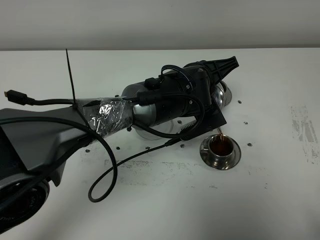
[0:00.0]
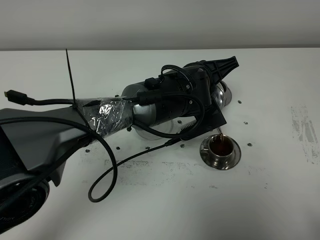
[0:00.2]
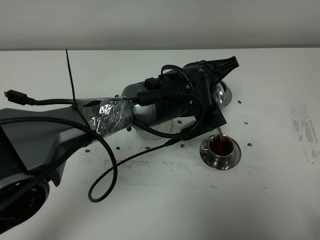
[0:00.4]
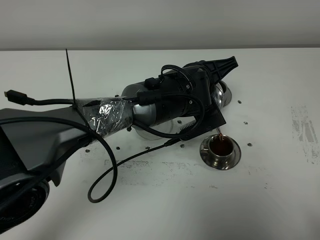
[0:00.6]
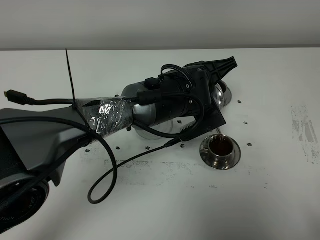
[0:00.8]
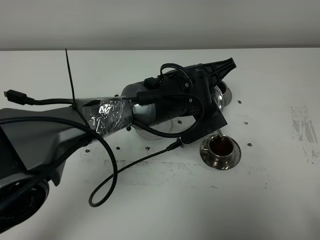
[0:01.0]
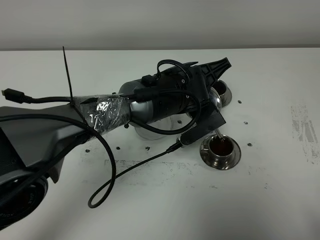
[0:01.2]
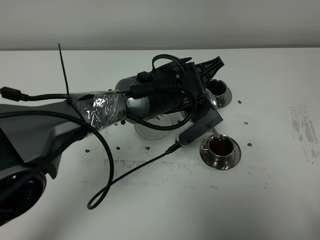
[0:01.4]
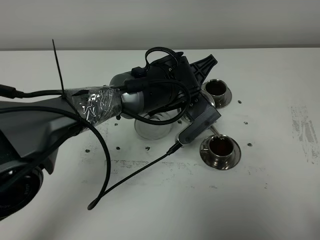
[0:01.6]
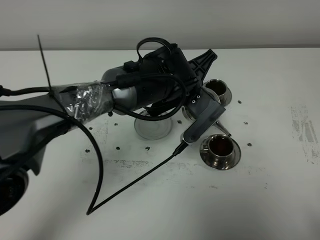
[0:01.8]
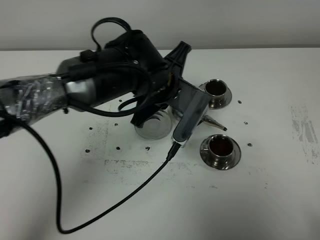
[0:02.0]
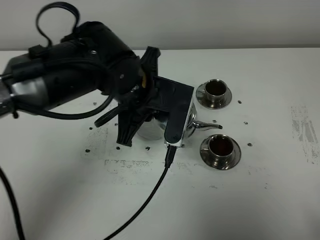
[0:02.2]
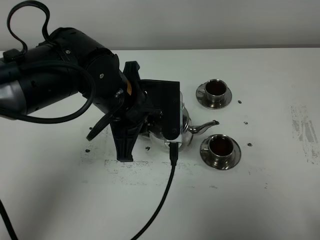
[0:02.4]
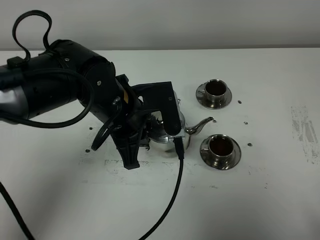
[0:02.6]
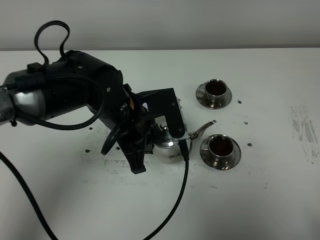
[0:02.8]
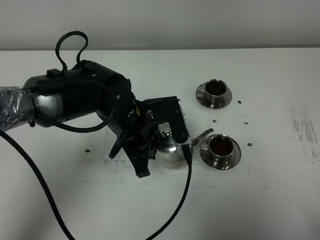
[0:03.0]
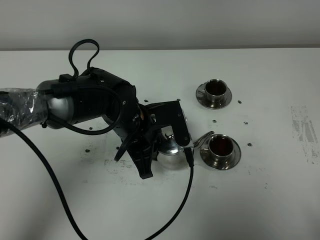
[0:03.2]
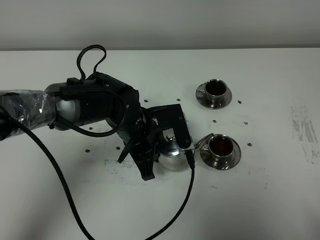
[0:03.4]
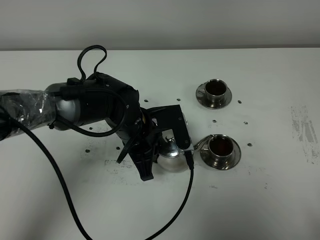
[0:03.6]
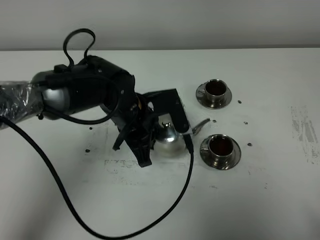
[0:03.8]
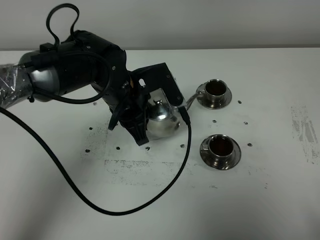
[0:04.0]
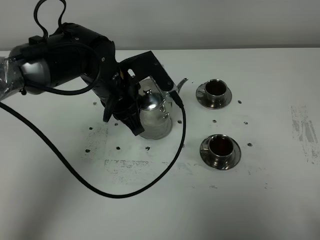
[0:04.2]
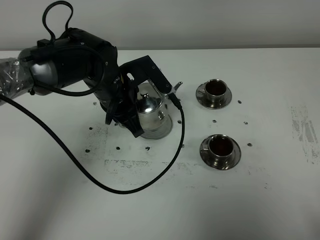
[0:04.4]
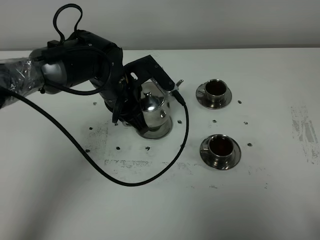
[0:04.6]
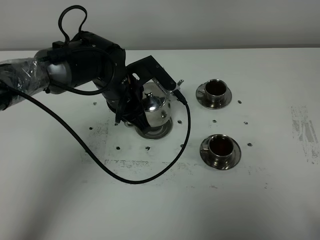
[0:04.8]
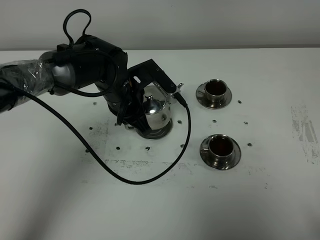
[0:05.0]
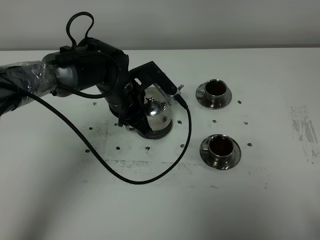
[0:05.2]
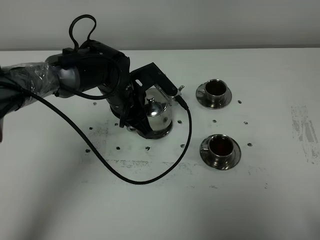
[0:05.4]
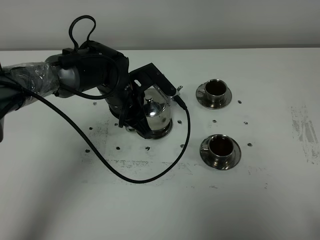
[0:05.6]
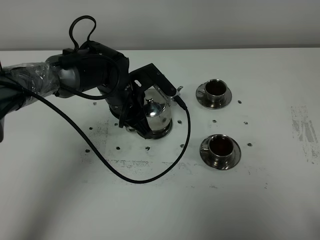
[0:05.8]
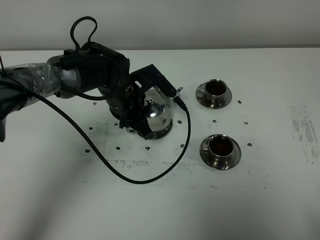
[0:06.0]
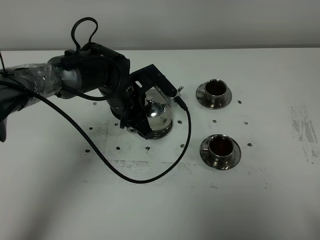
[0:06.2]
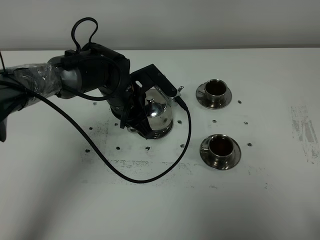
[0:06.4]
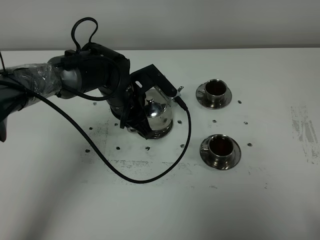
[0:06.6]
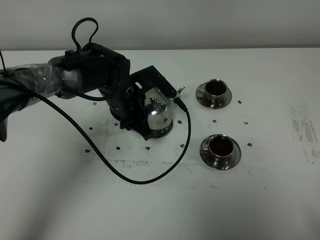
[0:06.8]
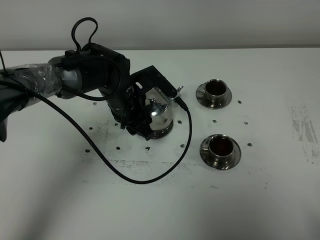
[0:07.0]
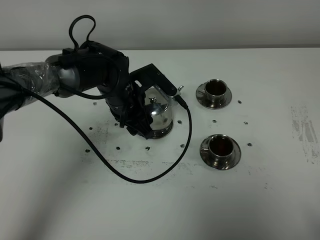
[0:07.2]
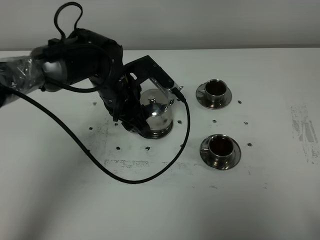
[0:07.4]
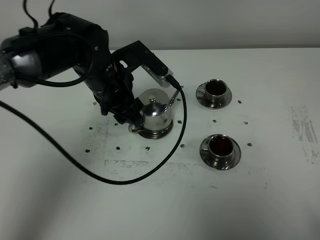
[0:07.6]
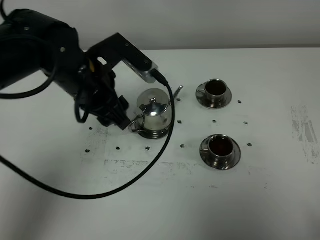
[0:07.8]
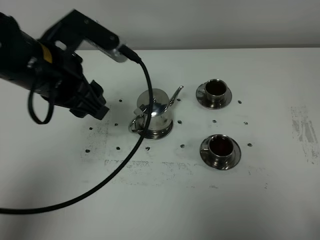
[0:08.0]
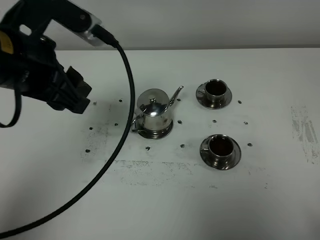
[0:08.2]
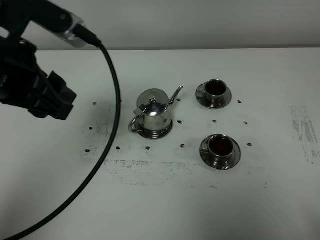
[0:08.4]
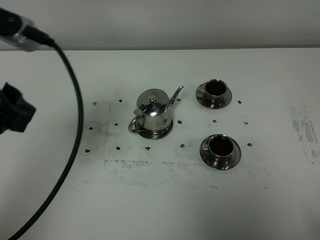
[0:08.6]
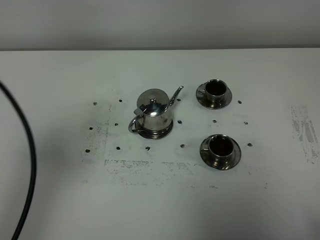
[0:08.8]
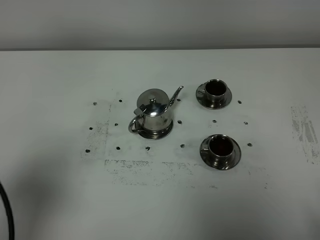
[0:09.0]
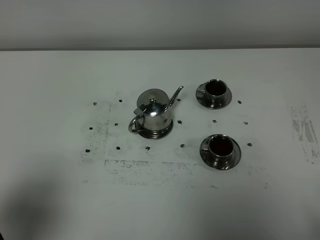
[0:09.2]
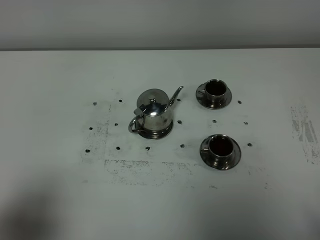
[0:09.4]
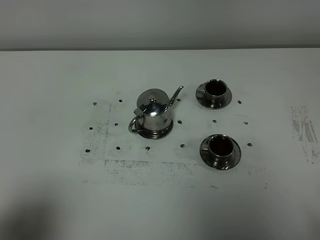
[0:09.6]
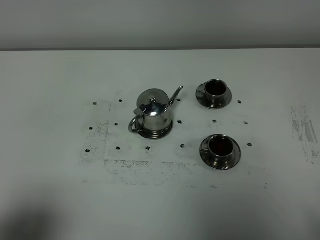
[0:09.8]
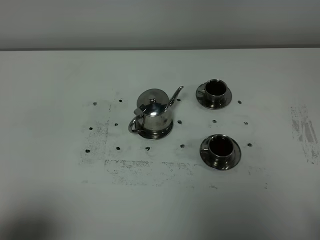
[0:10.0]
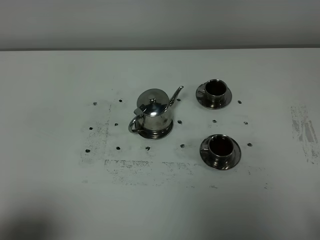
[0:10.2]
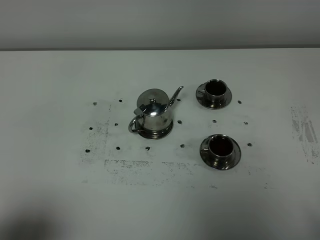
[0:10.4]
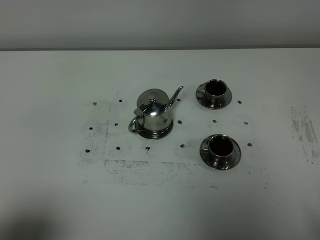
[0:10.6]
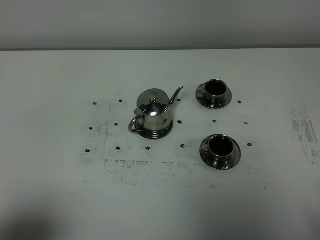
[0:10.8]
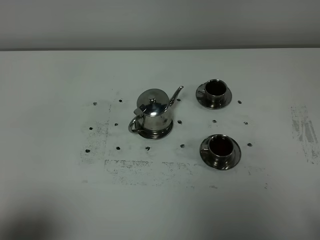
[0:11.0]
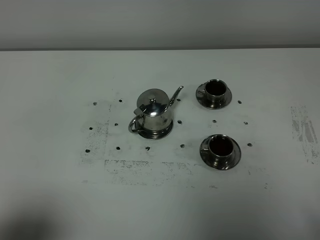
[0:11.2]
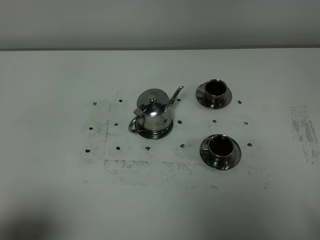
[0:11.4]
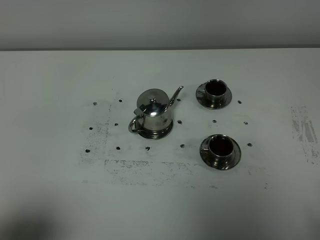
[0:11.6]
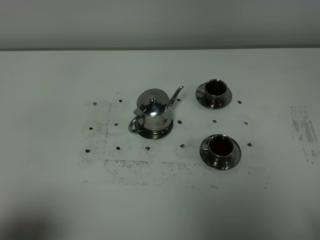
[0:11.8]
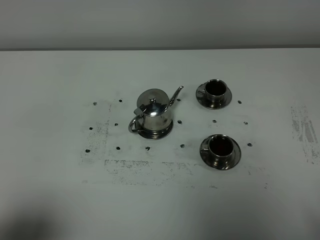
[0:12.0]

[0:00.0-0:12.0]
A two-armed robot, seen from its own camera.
Task of the whole recording: grasp the stainless steel teapot and pour the tea into the two stainless steel teacups one by one, put the stainless steel teapot back in its original place.
0:00.0 to 0:01.6: There are only small adjustments of the grippers.
0:01.6 to 0:03.0: The left gripper goes roughly 10 cm to the left and backward.
0:03.0 to 0:04.4: The left gripper goes some 5 cm forward.
0:04.4 to 0:06.0: There are only small adjustments of the grippers.
0:06.0 to 0:07.6: The left gripper travels upward by approximately 10 cm, and opens.
0:07.6 to 0:09.0: The left gripper travels backward and to the left by approximately 35 cm.
0:09.0 to 0:10.4: The left gripper is displaced backward and downward by approximately 10 cm.
0:10.4 to 0:12.0: The two grippers keep their place.

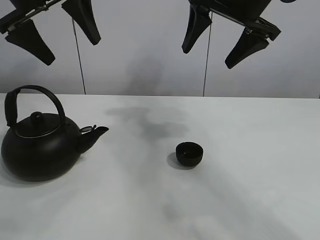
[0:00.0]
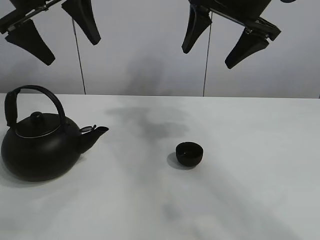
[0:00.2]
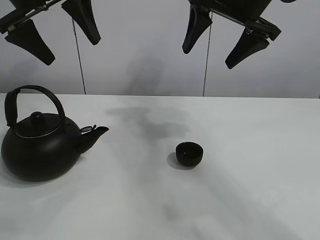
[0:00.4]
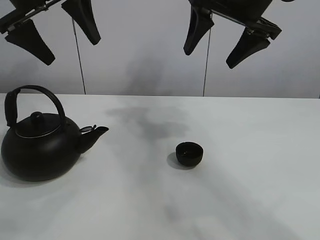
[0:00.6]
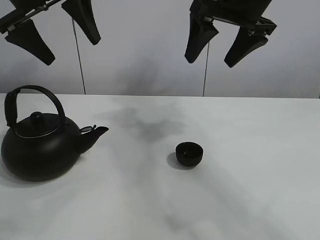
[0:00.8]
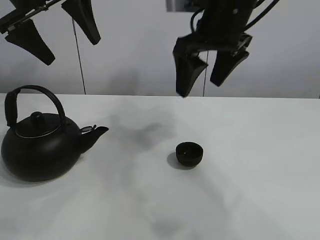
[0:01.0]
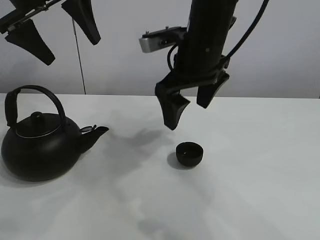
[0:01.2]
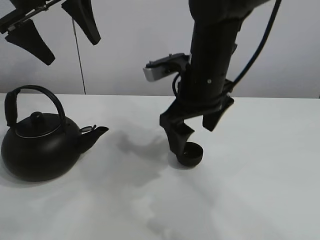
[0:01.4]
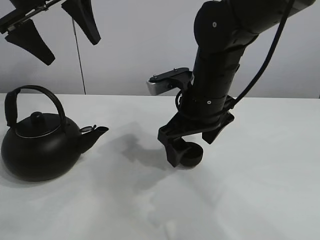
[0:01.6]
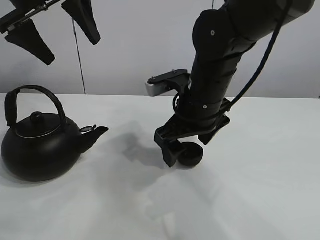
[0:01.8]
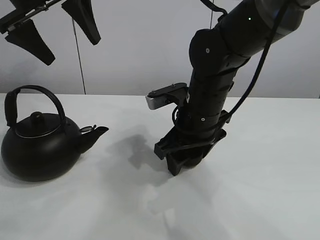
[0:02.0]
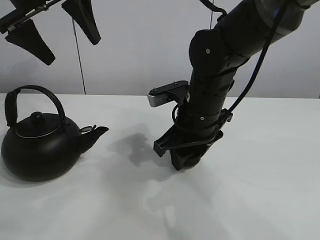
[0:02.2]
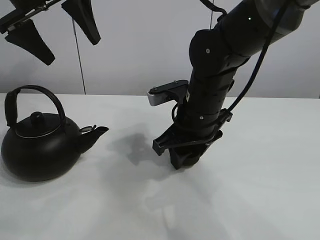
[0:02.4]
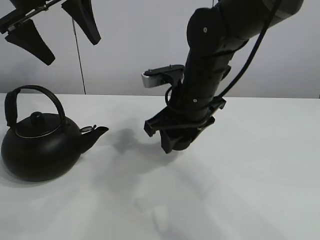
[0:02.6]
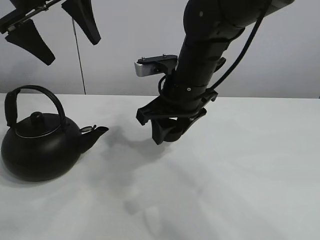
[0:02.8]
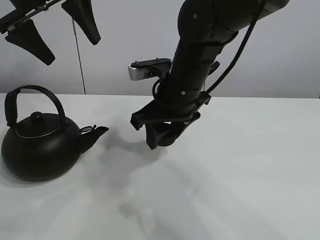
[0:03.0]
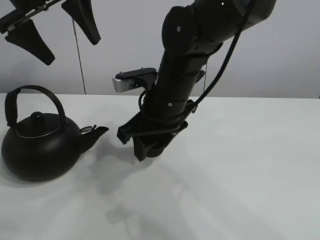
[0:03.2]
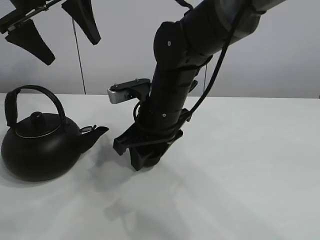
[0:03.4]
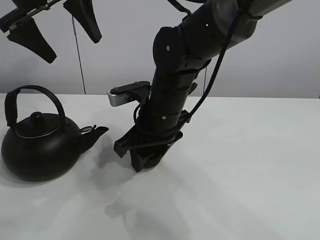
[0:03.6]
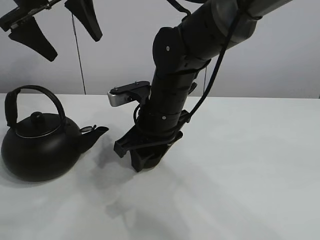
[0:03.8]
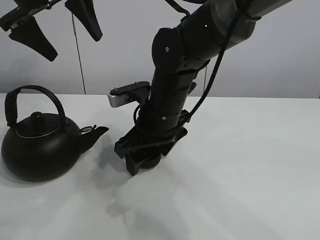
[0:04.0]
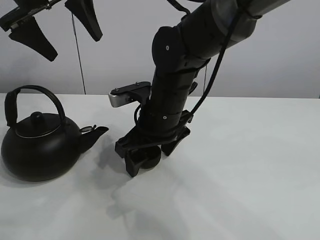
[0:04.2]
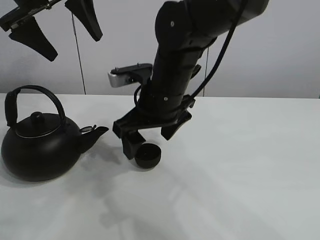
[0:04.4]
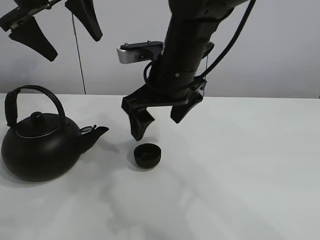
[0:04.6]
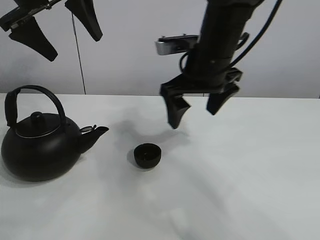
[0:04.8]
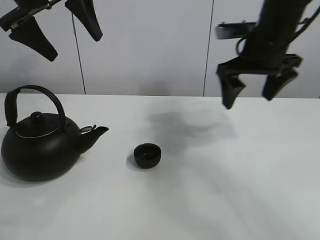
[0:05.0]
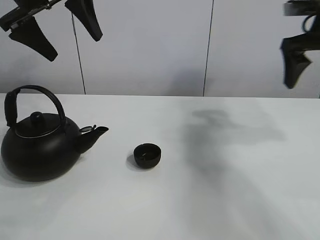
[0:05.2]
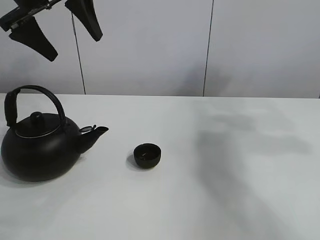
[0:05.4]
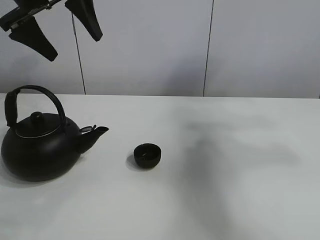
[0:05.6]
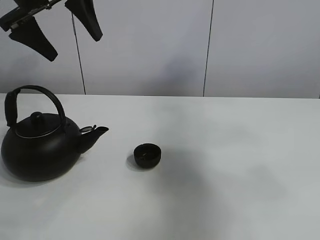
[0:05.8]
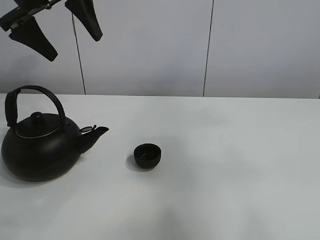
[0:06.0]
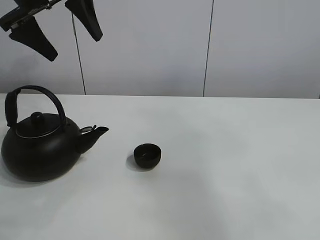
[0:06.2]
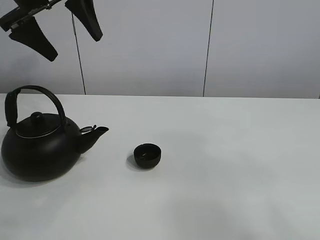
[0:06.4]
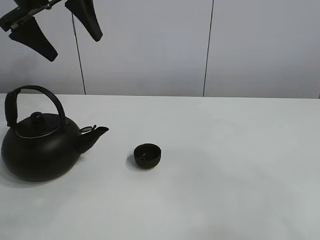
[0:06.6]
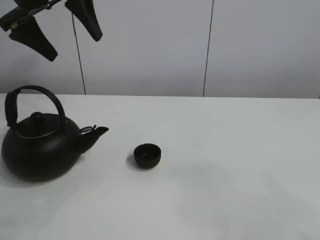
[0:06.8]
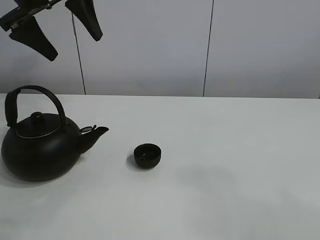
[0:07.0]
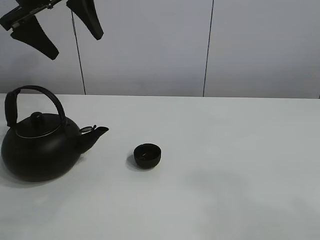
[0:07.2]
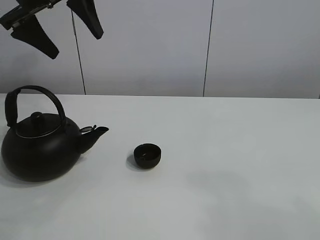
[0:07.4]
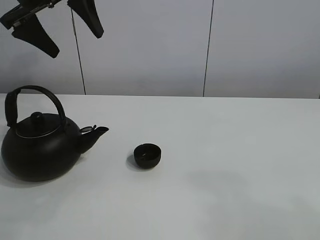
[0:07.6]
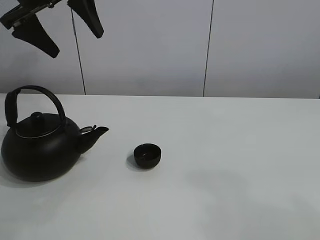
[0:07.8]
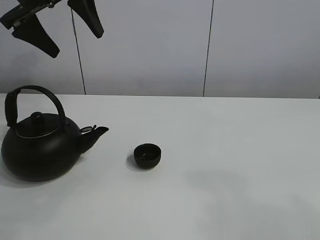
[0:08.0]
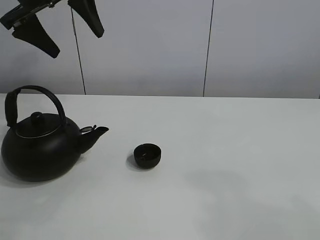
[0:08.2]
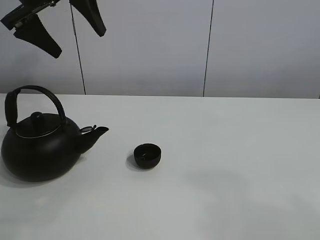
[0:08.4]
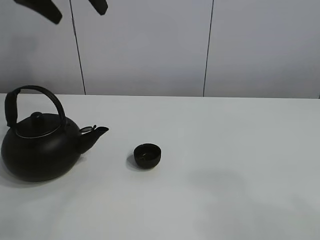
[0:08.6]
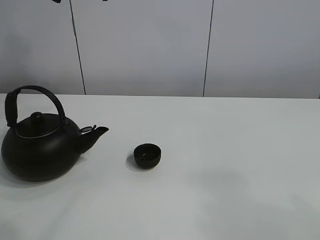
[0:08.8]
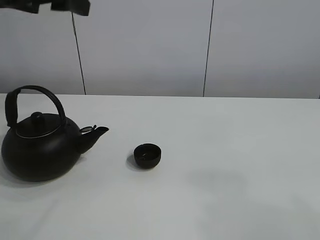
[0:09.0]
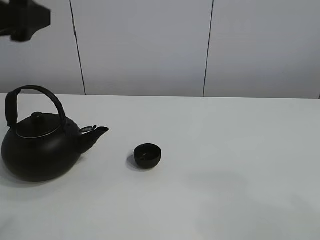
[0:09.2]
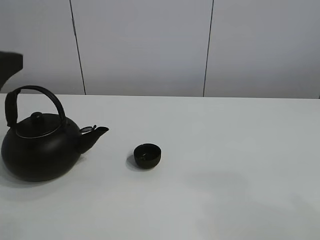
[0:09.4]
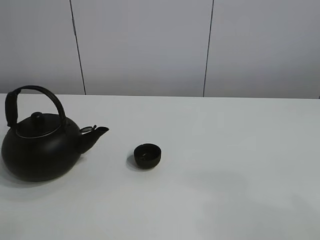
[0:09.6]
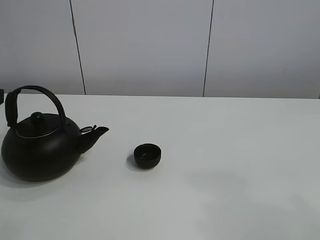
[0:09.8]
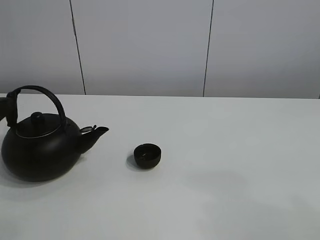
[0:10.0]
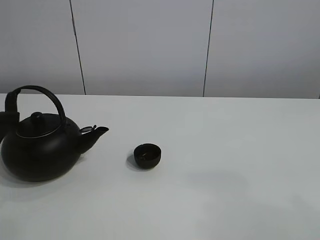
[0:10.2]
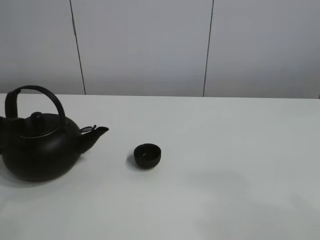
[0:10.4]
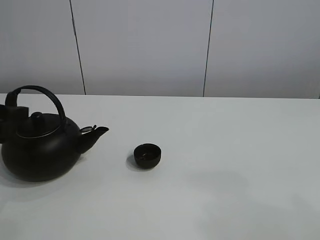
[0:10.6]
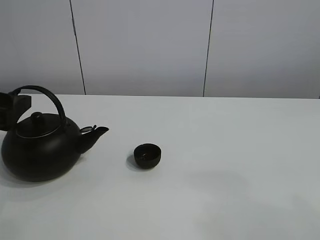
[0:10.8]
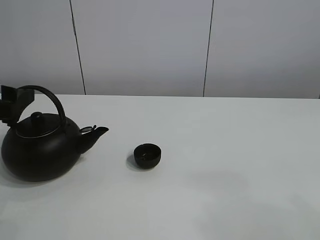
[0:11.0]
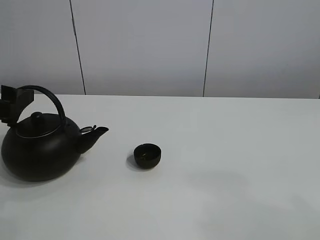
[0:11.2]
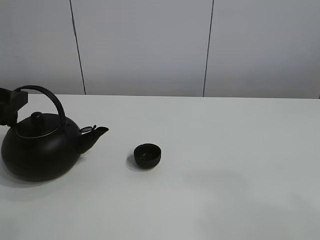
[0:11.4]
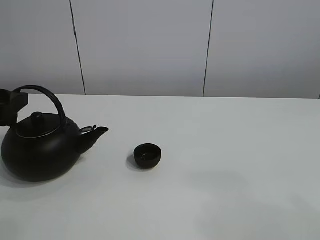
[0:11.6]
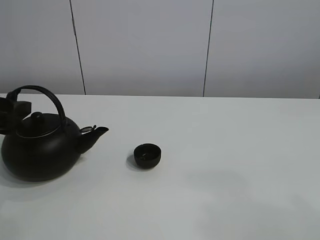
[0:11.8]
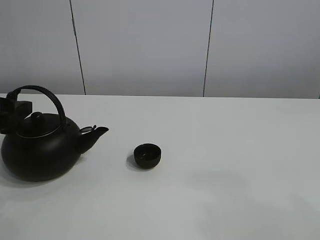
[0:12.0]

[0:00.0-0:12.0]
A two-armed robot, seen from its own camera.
Task of the whole recording: pour tea into the teacup.
Step, 0:00.0 to 0:02.4: Pick up the teacup with the right gripper.
Step, 0:02.6 to 0:03.8: Place the teacup in the center of view with the right gripper.
0:01.6 to 0:03.0: The right gripper closes its fingers.
0:03.0 to 0:04.4: The right gripper opens up.
0:04.4 to 0:06.0: The right gripper heads upward, to the right and backward, covering approximately 50 cm.
0:06.0 to 0:07.6: The right gripper moves downward and backward, approximately 20 cm.
0:07.6 to 0:09.0: The left gripper travels backward by some 10 cm.
0:09.0 to 0:10.4: The left gripper travels downward and to the left by some 20 cm.
